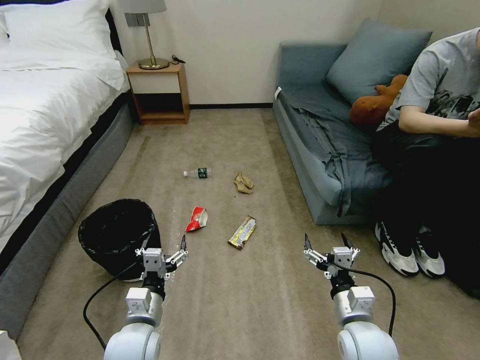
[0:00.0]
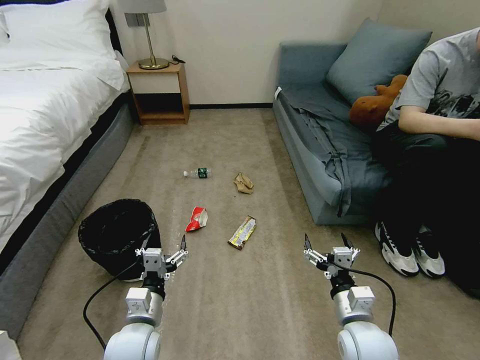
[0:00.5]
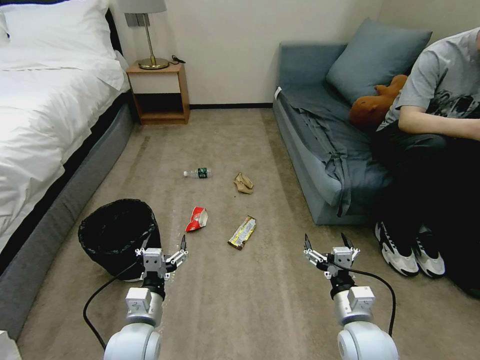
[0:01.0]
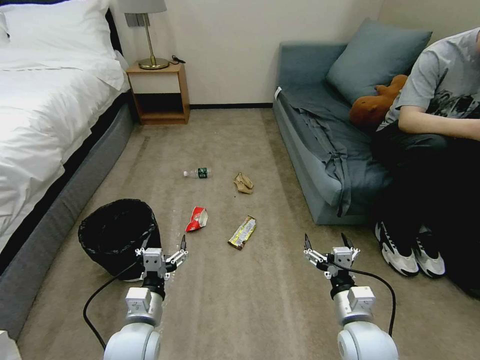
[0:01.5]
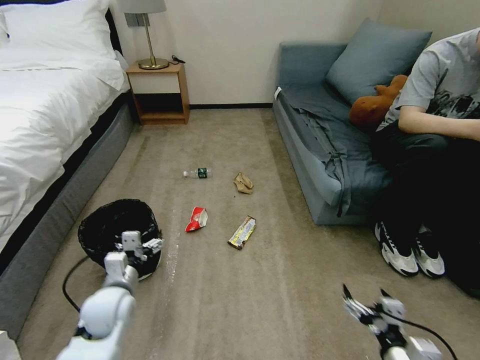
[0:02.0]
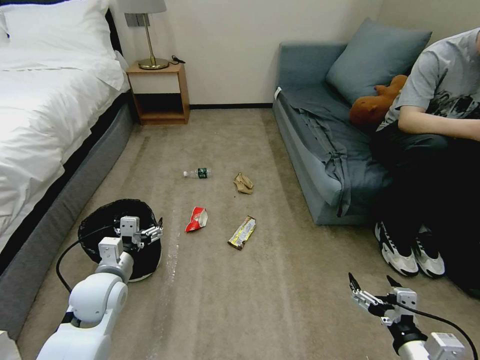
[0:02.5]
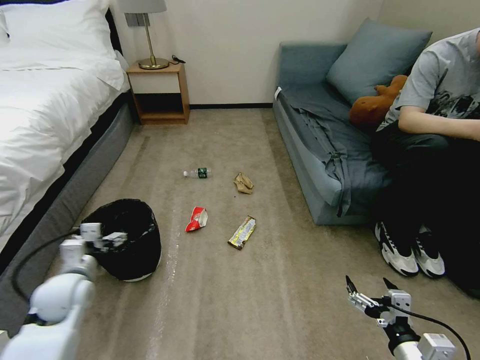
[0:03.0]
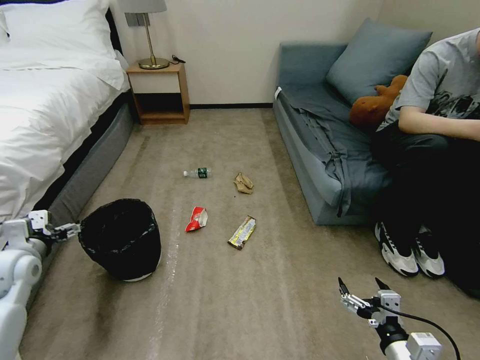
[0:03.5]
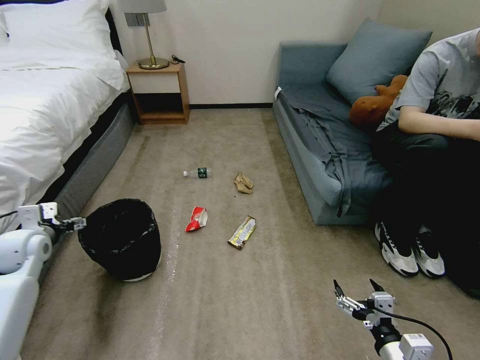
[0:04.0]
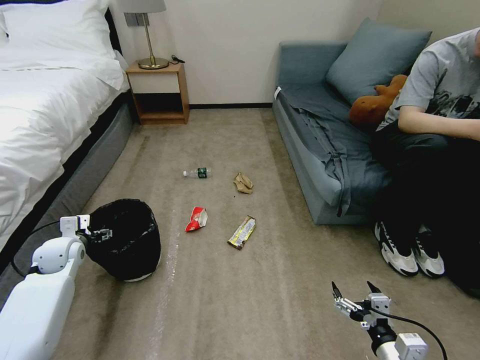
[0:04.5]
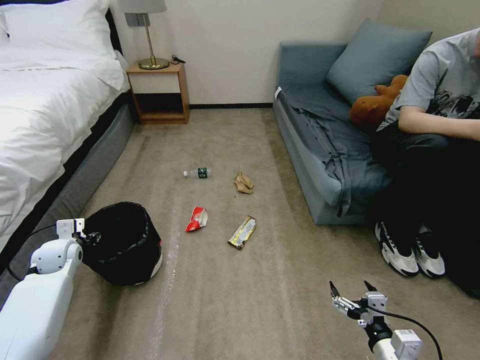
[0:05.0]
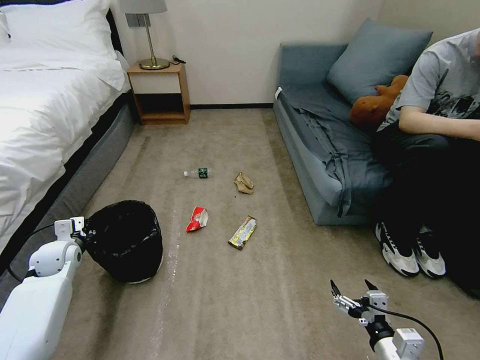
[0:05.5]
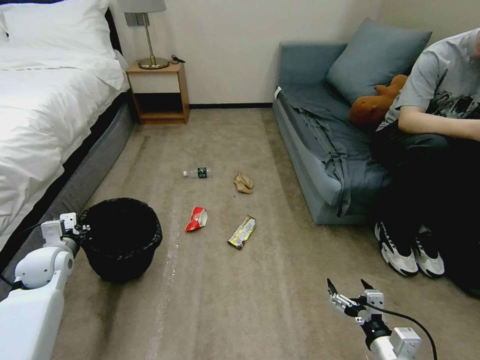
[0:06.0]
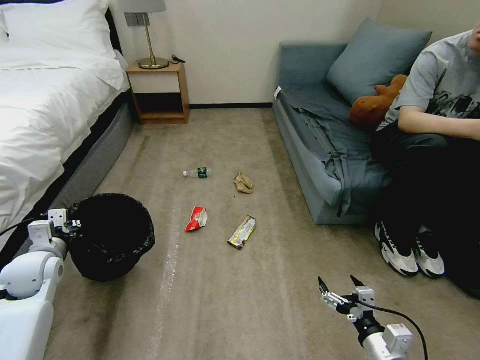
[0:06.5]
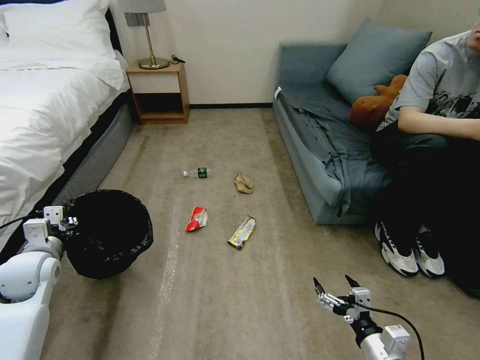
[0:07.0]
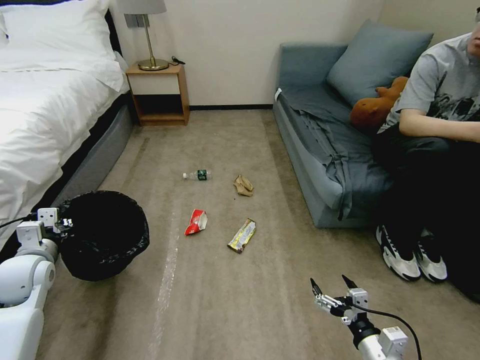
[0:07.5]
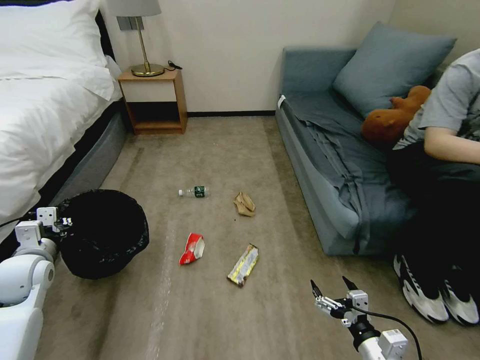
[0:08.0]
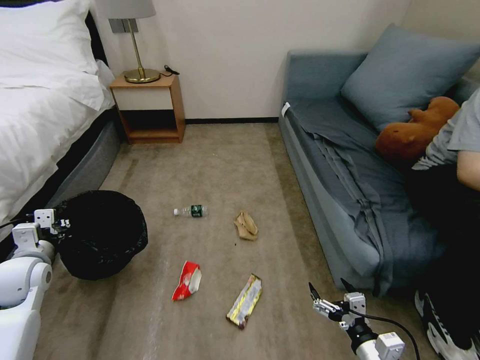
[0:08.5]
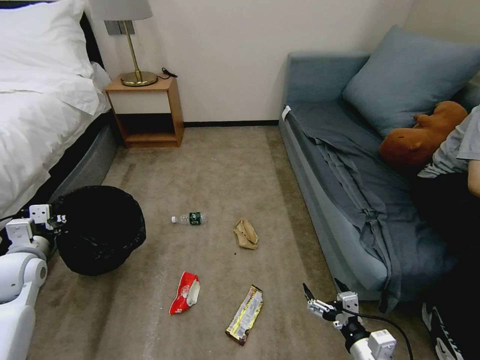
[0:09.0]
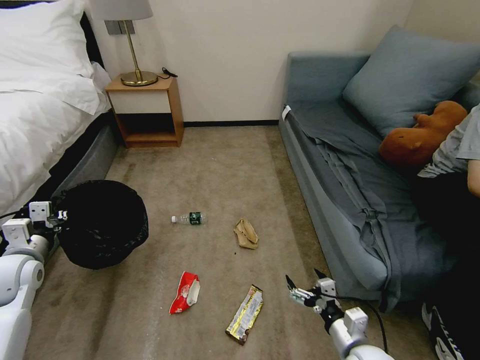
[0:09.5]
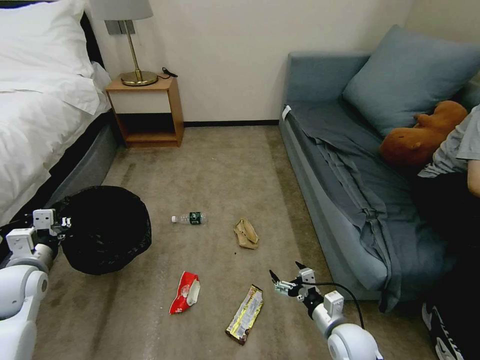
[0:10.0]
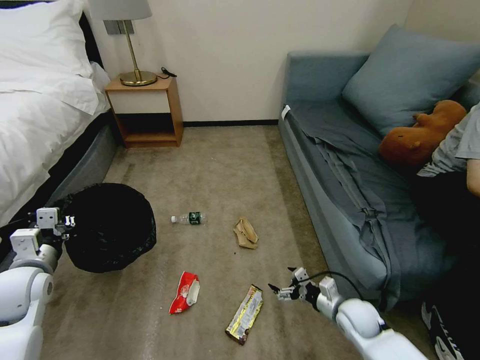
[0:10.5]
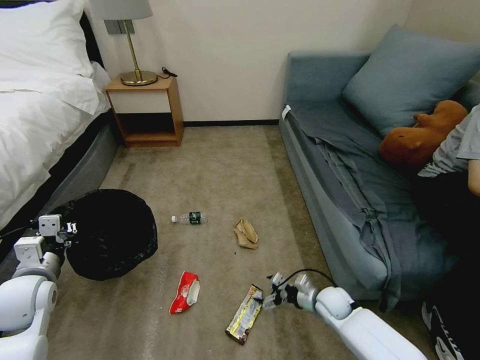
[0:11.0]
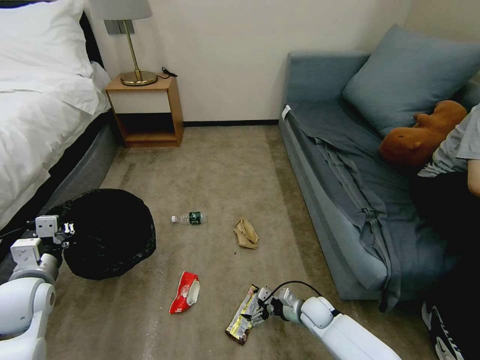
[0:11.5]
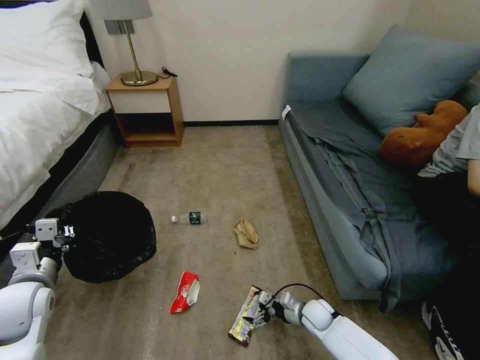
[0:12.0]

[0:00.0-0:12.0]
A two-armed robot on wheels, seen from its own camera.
Task of the whole recording: Pick up the trash bin, then pick up the garbage on the floor and place it into the trash bin.
0:02.0 to 0:04.0: The left gripper travels to the left, upward and forward by roughly 25 cm.
0:04.0 to 0:06.0: The left gripper goes about 5 cm downward, and closes up.
0:06.0 to 0:08.0: The left gripper ends up about 5 cm from where it was.
0:08.0 to 0:10.0: The right gripper heads forward and to the left, covering some 10 cm.
0:10.0 to 0:12.0: The left gripper changes place by some 5 cm, while the right gripper heads downward and forward, covering some 15 cm.

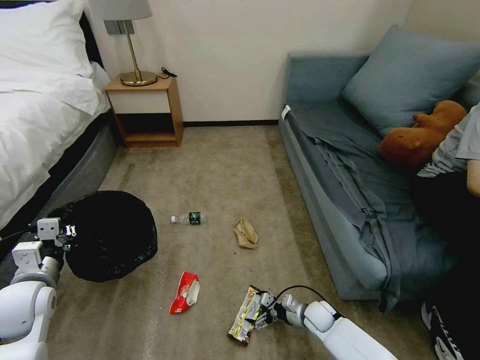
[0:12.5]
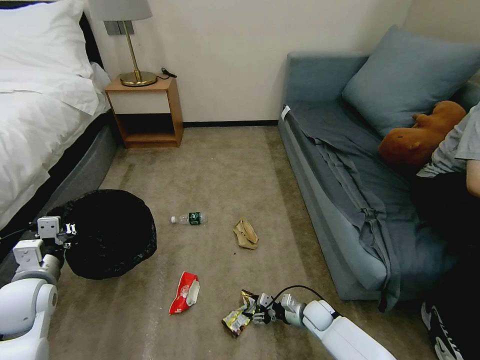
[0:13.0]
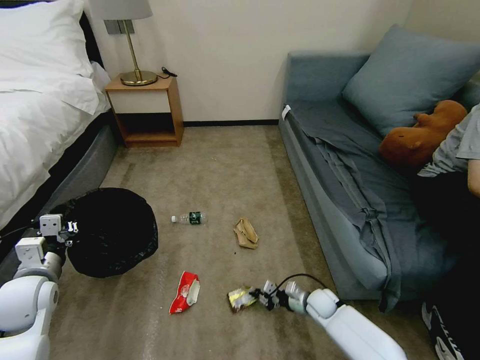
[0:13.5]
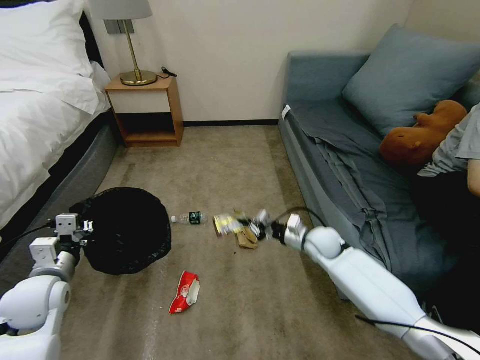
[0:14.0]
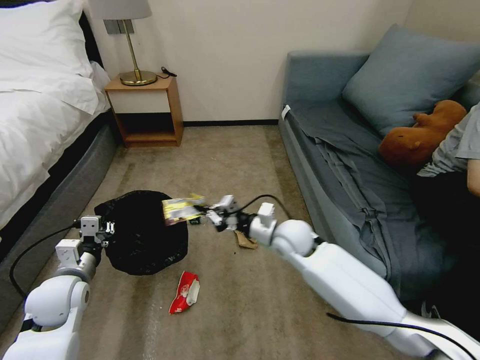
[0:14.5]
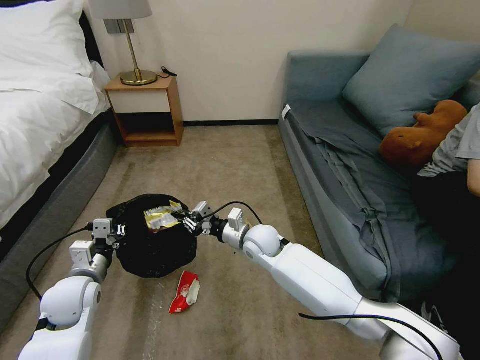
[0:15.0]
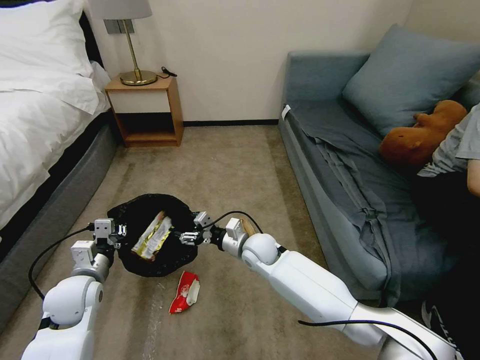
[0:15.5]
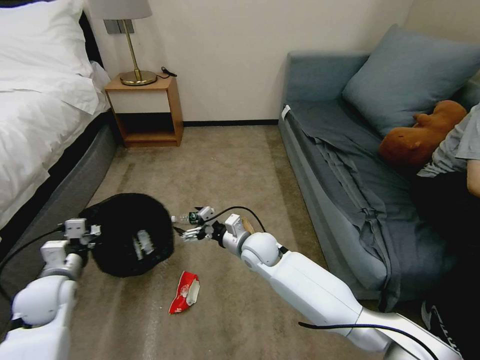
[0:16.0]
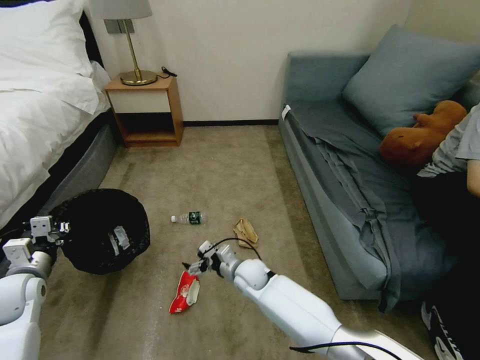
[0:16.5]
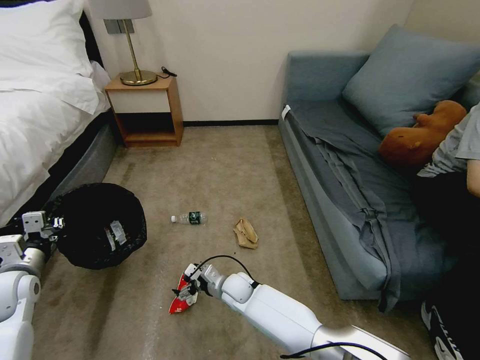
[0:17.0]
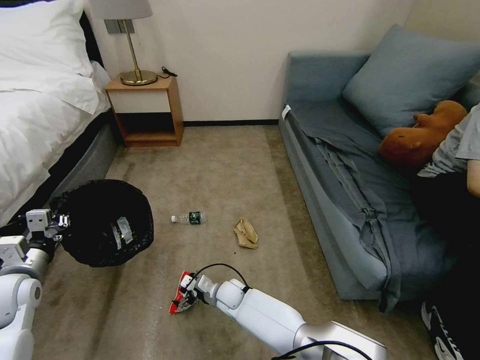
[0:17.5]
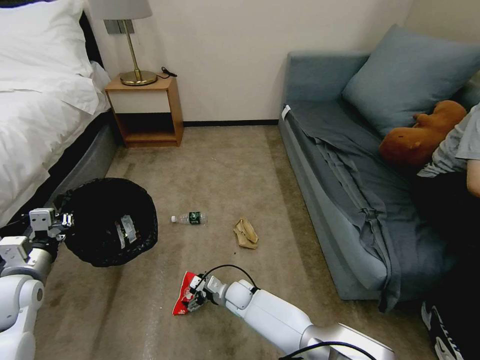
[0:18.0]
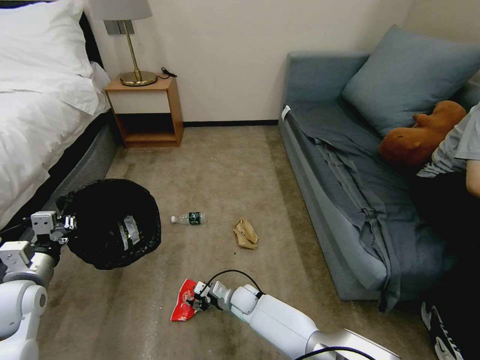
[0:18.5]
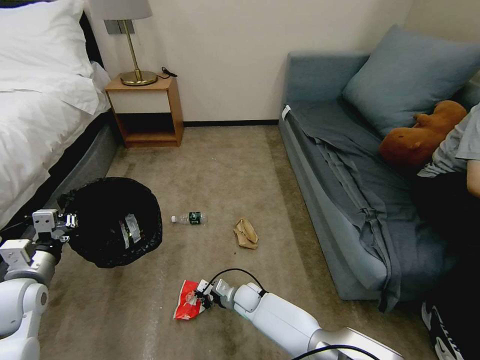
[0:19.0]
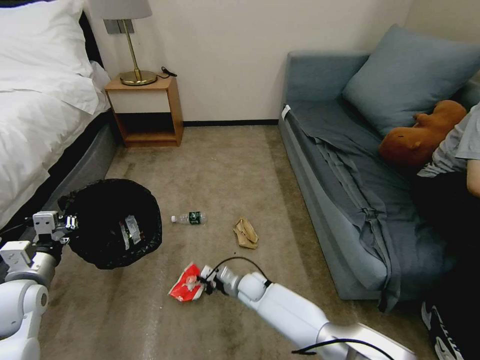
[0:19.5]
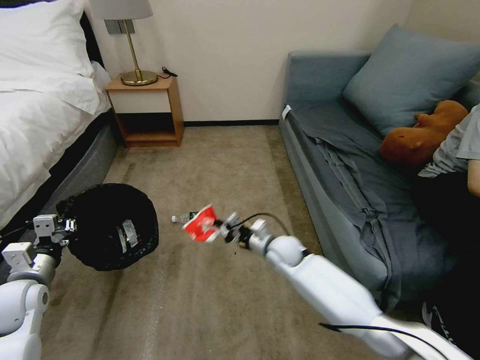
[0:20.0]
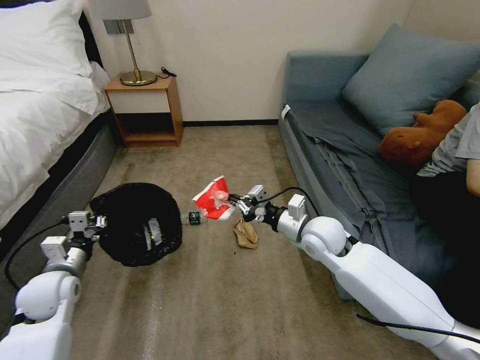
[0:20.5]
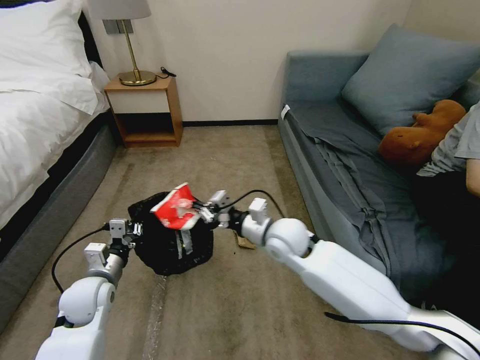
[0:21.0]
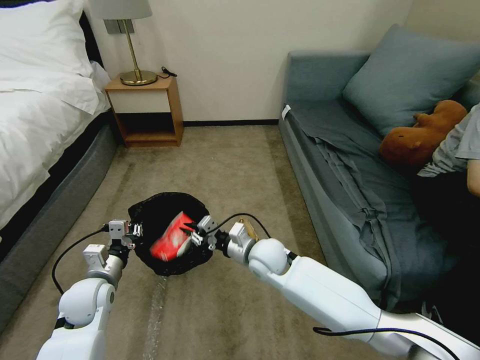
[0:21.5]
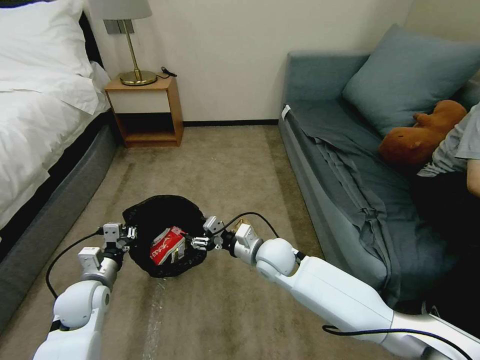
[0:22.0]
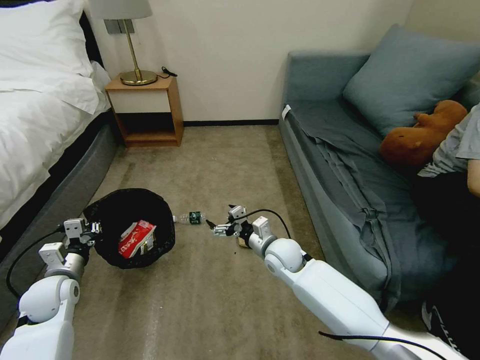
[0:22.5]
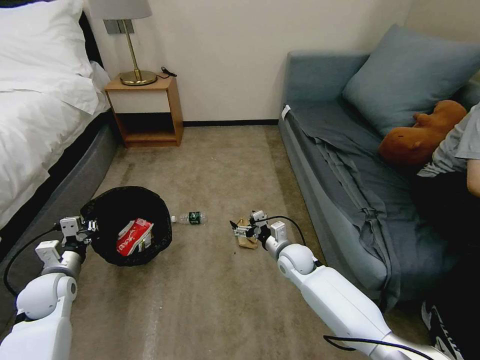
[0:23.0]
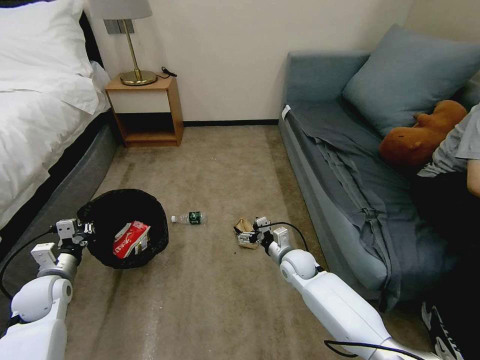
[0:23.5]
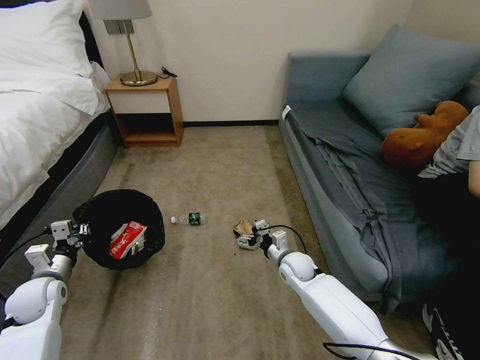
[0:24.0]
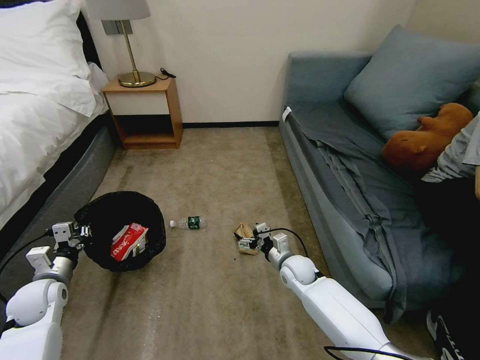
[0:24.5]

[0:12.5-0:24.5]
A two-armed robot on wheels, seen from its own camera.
Task of the whole recording: Pick up the trash bin, then pick up the garbage on the floor and place it into the trash bin.
0:12.5 to 0:14.5: The left gripper shifts by about 5 cm. The right gripper is displaced upward and to the left by roughly 30 cm, and closes up.
0:14.5 to 0:16.5: The left gripper goes roughly 10 cm to the left, while the right gripper goes approximately 20 cm downward and to the left, and opens up.
0:16.5 to 0:18.5: The left gripper changes place by some 5 cm. The right gripper heads downward, covering roughly 10 cm, and closes.
0:18.5 to 0:20.5: The left gripper ends up roughly 5 cm from where it was, while the right gripper travels upward and to the right by about 35 cm, and closes up.
0:20.5 to 0:22.5: The left gripper moves approximately 5 cm to the right and comes back, while the right gripper goes approximately 10 cm downward and to the left, and opens its fingers.
0:22.5 to 0:24.5: The right gripper moves downward and to the right, some 10 cm.

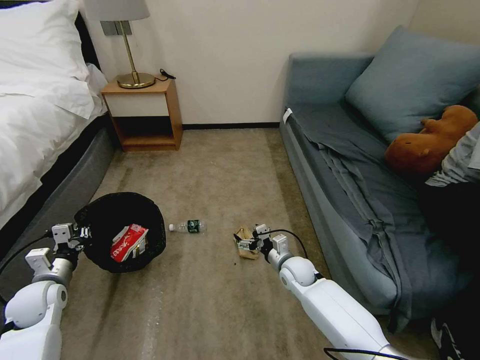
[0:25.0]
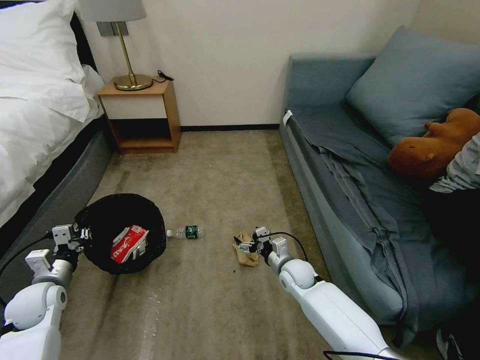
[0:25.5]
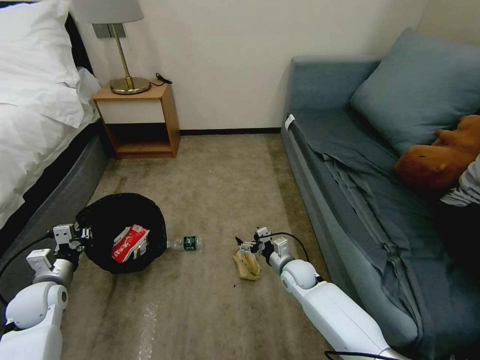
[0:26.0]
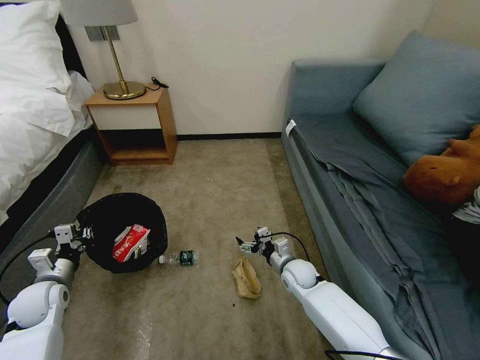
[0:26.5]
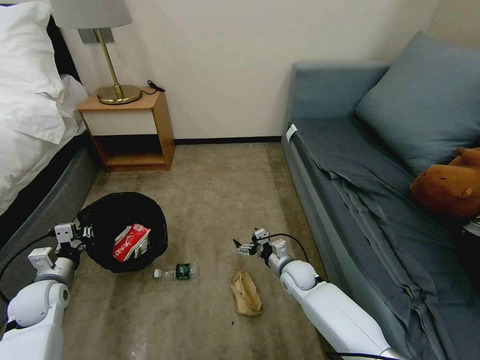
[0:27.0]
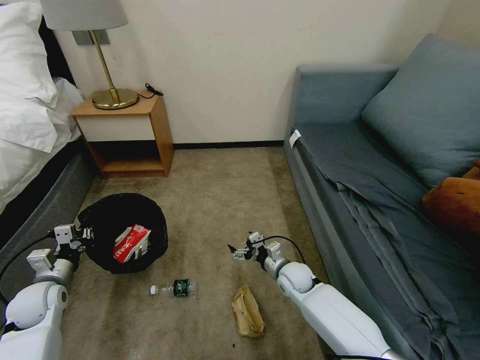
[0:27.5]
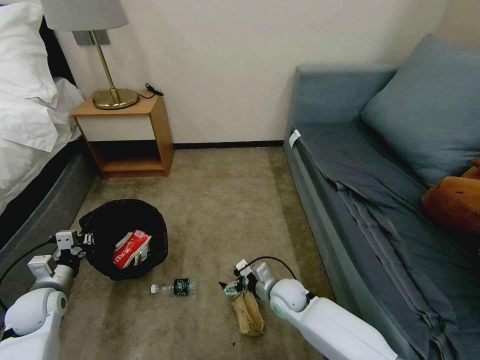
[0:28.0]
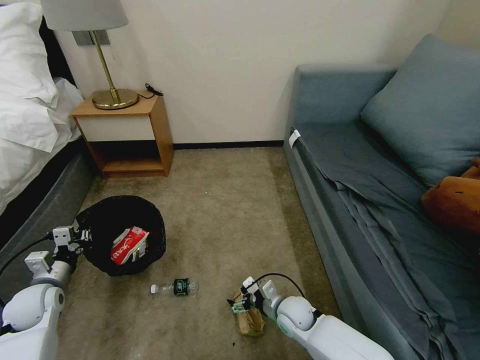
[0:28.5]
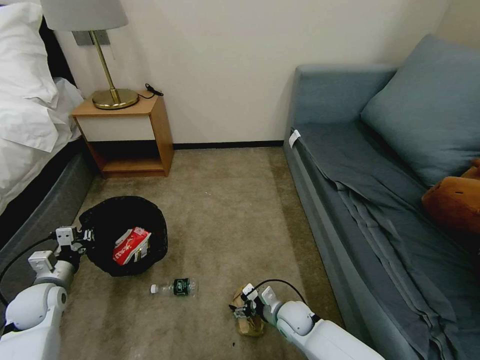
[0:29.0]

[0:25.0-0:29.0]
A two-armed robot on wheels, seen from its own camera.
Task of the whole recording: Pick up the trash bin, then pick up the garbage on the floor and place it into the trash bin.
0:27.0 to 0:29.0: The right gripper is displaced backward and downward by approximately 10 cm.
